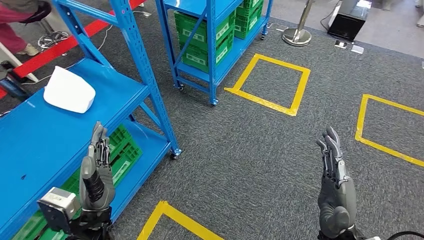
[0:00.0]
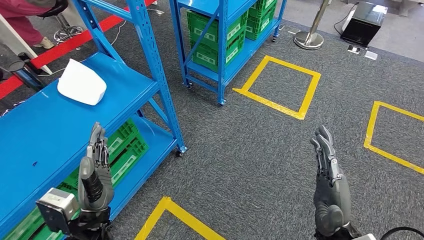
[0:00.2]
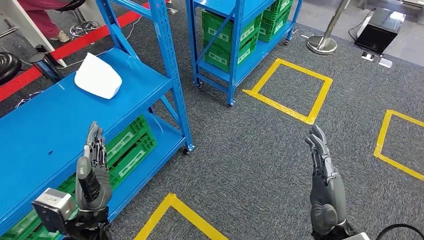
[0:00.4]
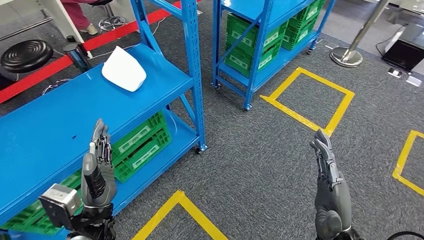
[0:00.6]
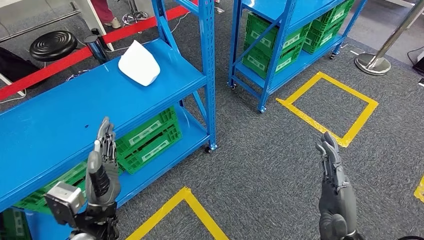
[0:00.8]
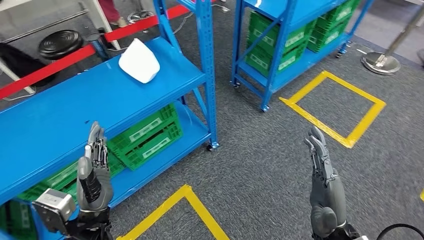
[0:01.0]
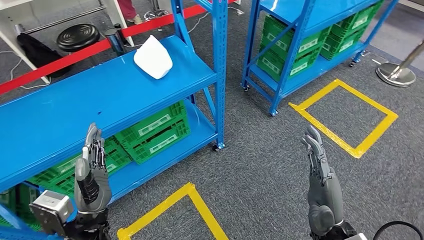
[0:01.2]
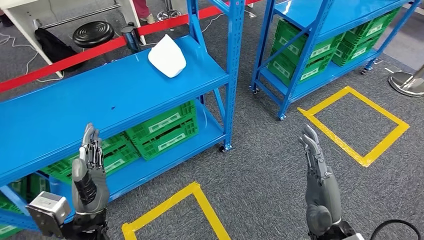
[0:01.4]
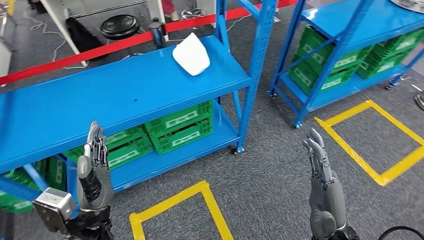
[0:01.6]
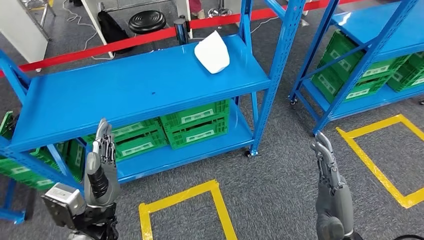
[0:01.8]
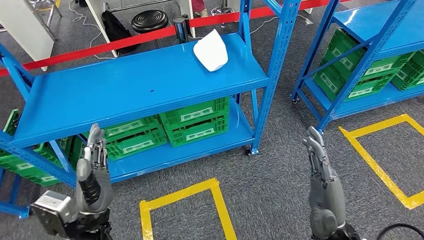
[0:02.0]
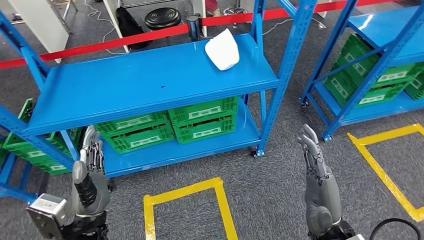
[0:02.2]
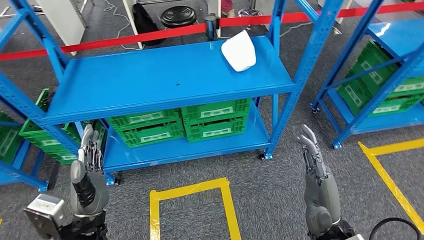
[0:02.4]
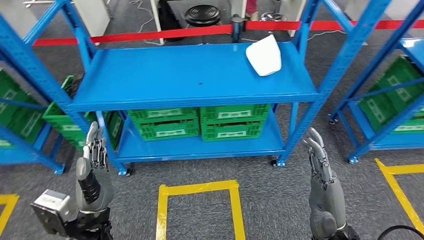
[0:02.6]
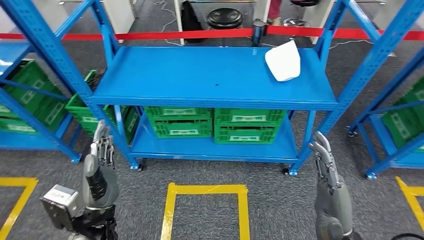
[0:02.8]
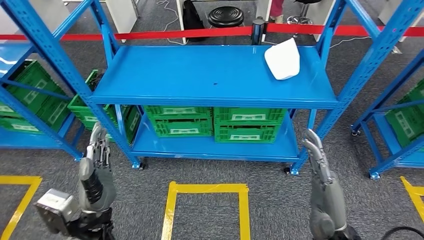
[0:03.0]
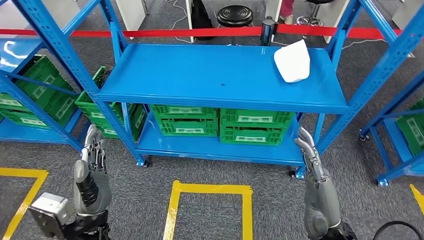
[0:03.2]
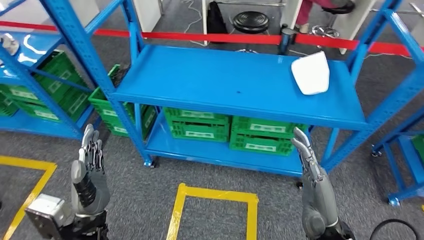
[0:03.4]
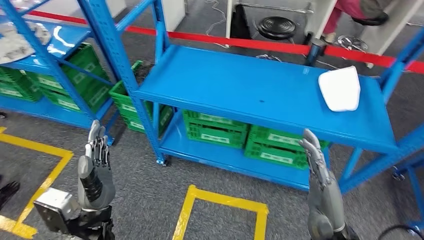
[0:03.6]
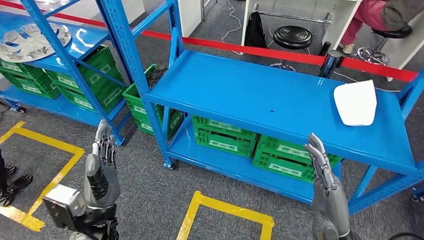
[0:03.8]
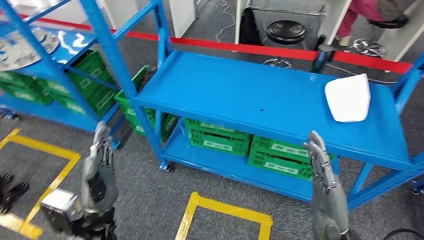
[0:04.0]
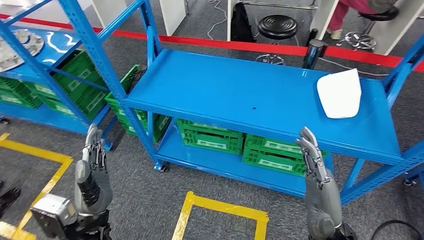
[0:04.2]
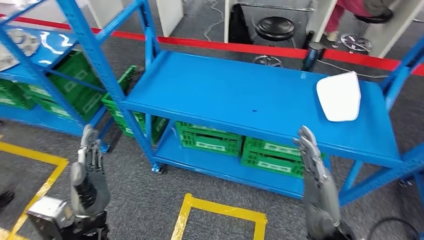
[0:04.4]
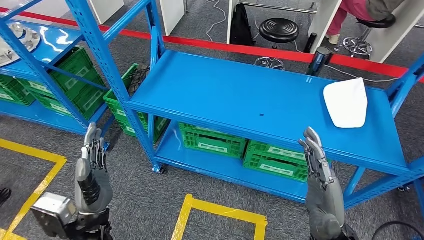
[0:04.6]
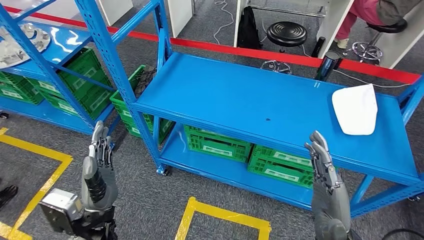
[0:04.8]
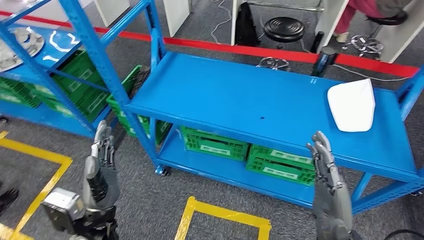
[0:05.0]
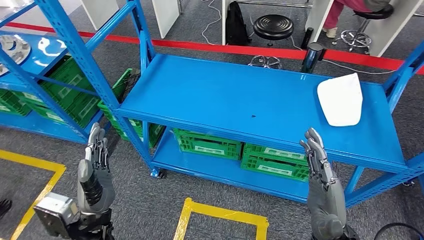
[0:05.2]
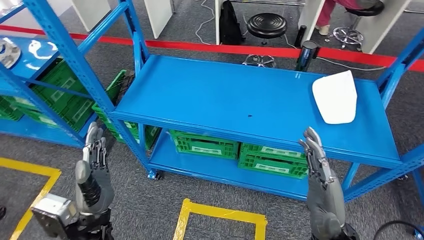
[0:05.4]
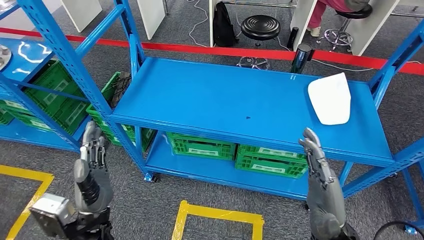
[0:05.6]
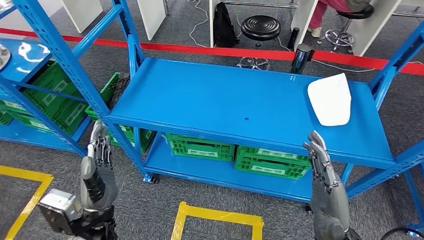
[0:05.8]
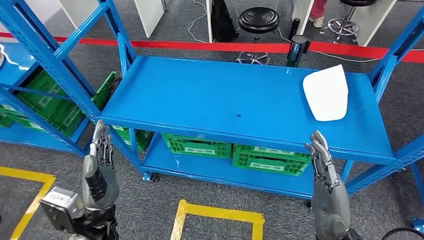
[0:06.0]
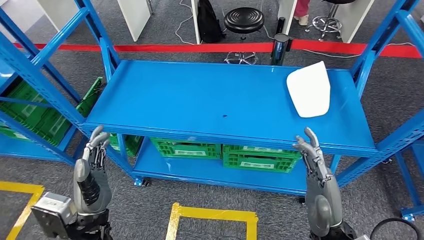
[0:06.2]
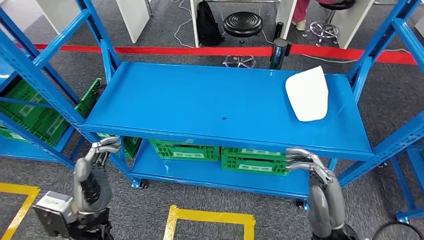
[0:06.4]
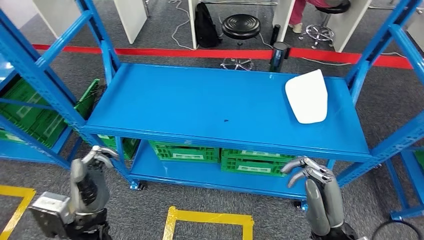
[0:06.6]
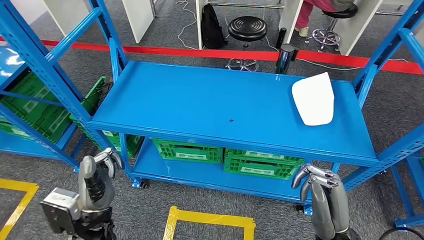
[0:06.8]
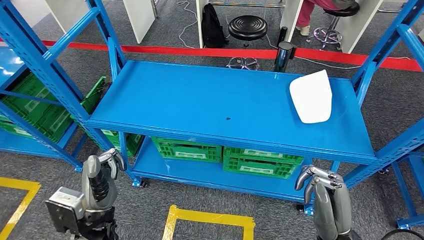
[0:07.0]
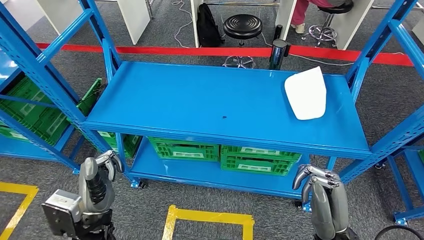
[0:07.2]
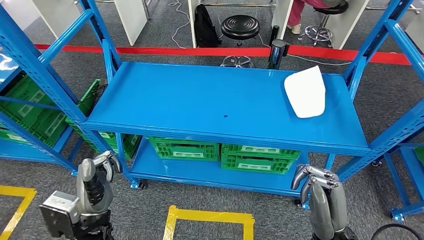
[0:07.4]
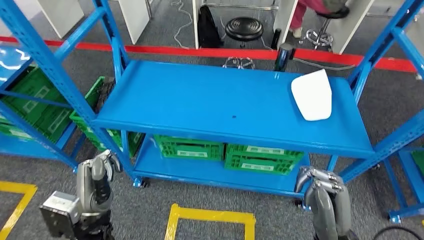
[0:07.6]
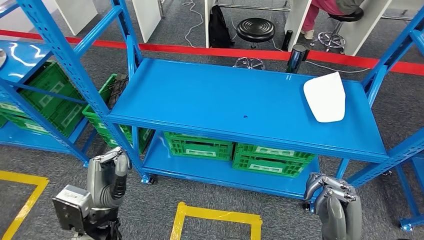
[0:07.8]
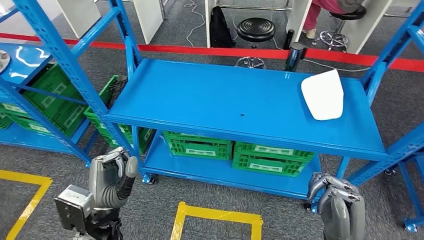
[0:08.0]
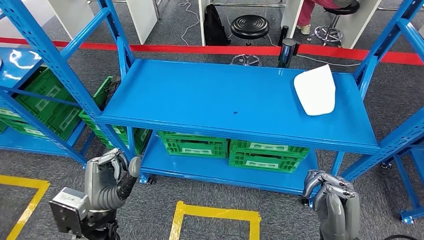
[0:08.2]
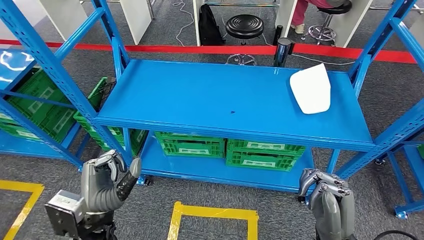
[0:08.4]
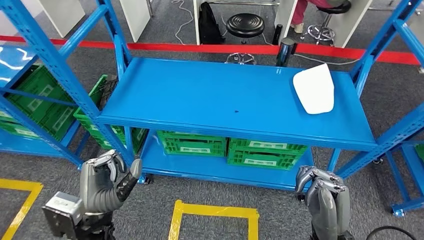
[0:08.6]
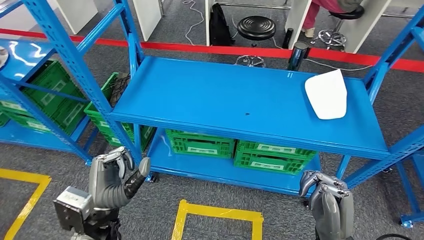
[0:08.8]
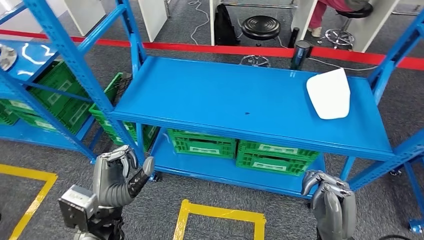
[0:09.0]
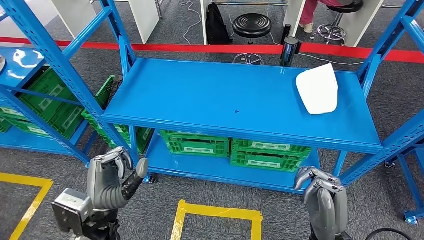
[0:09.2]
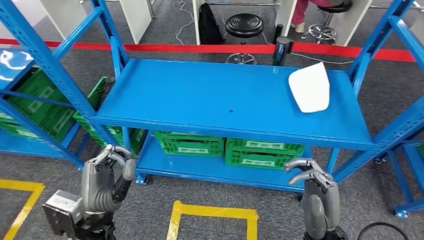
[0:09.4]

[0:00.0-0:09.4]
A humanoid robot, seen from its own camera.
Step, 0:00.0 to 0:09.2: Move to the initial position of the workbench.
